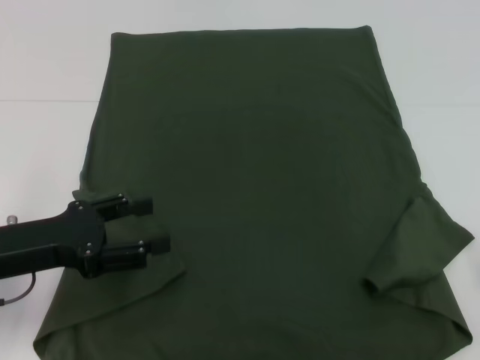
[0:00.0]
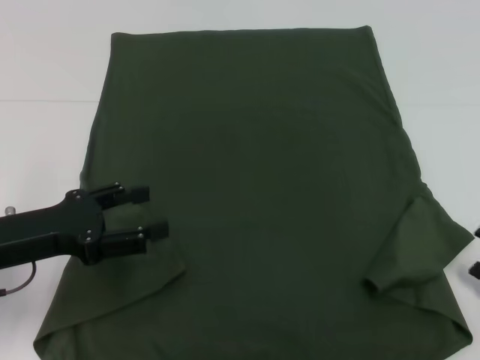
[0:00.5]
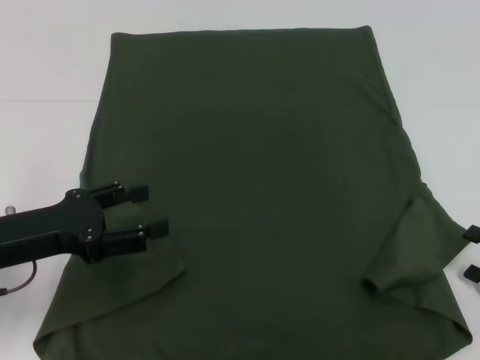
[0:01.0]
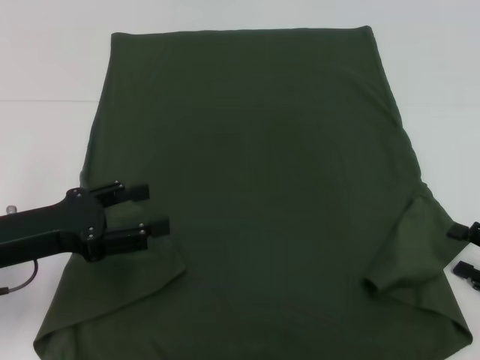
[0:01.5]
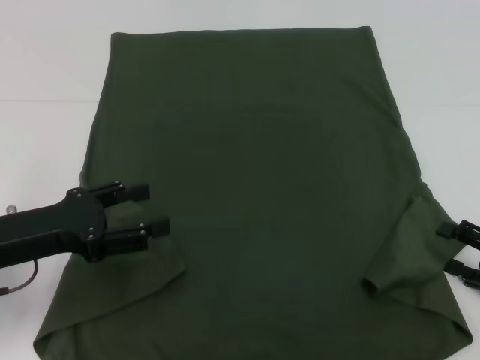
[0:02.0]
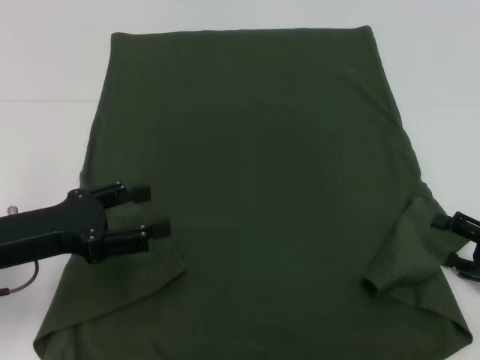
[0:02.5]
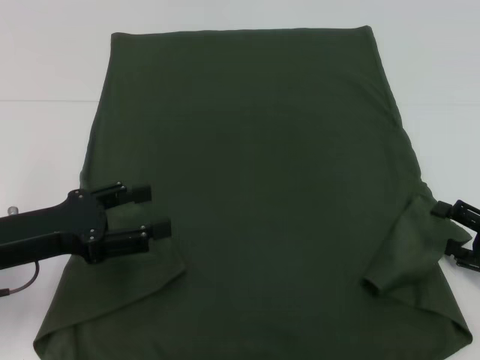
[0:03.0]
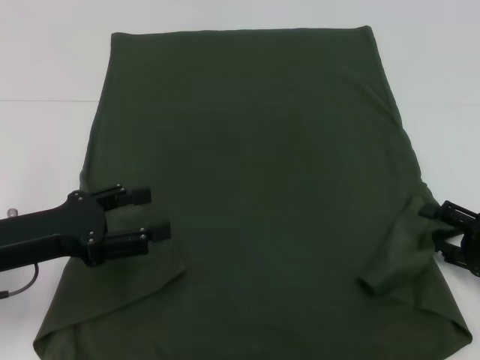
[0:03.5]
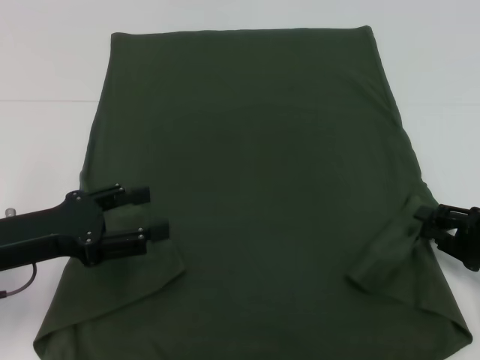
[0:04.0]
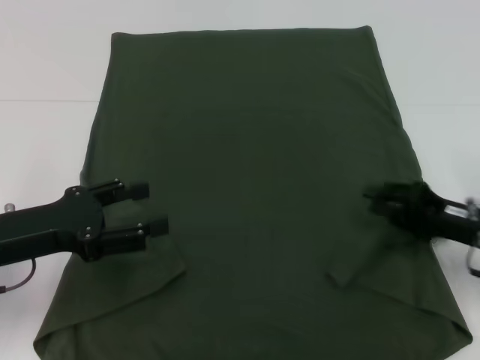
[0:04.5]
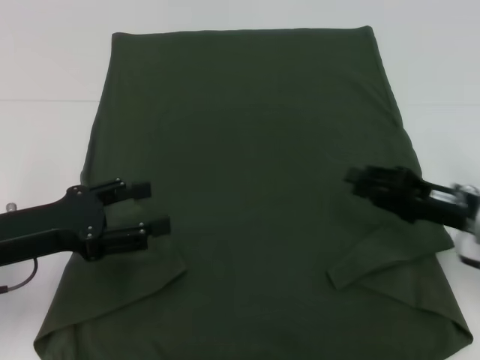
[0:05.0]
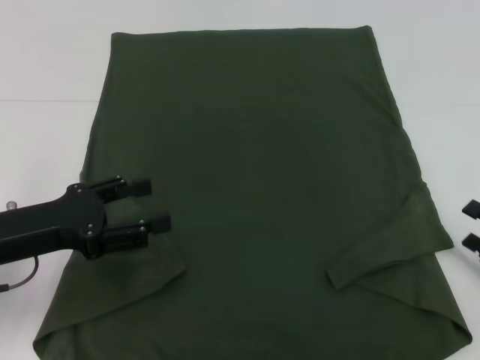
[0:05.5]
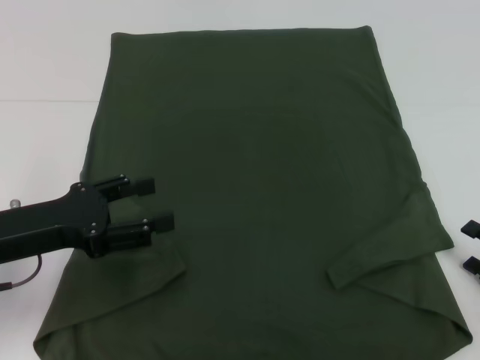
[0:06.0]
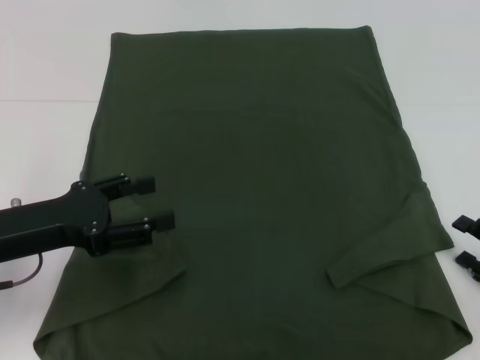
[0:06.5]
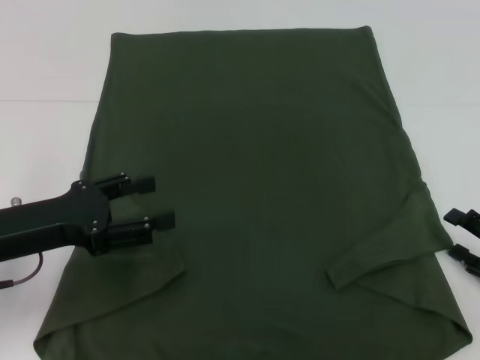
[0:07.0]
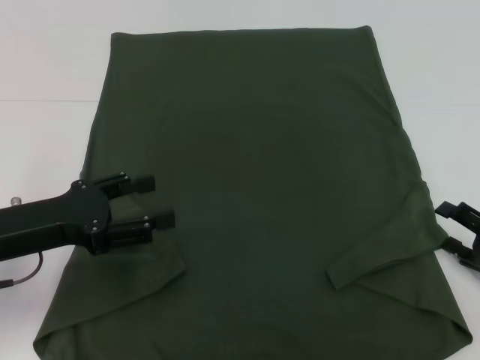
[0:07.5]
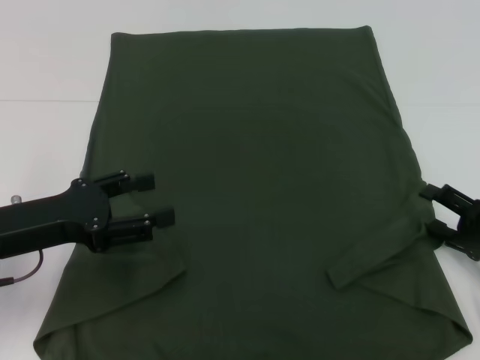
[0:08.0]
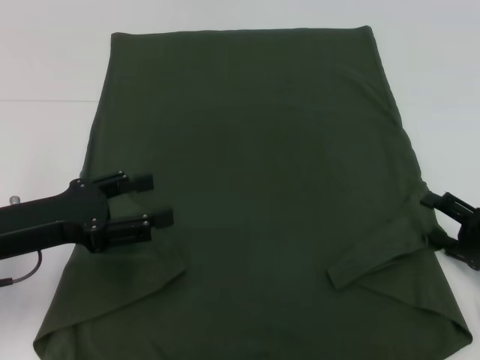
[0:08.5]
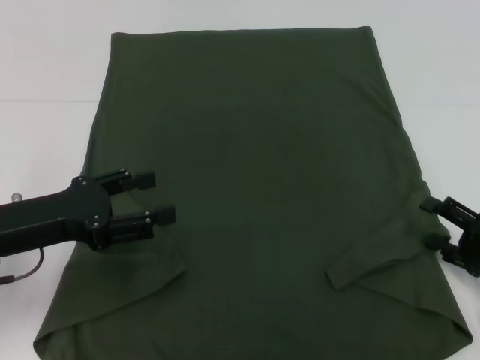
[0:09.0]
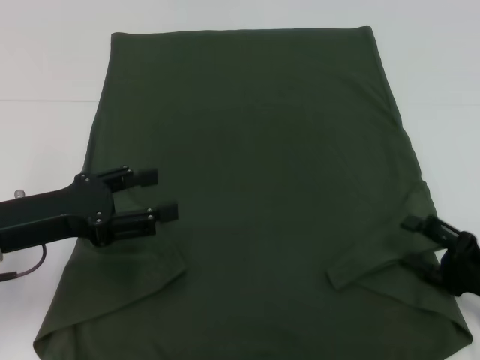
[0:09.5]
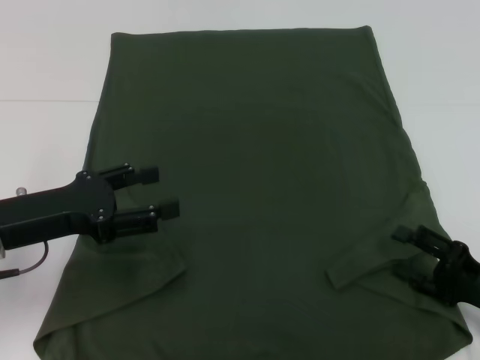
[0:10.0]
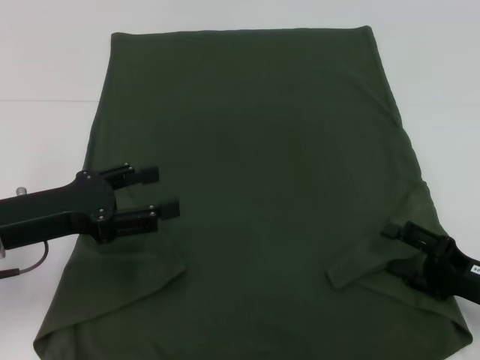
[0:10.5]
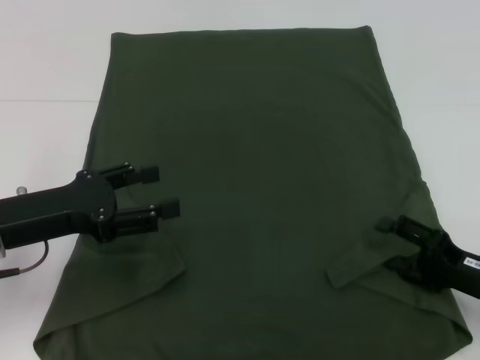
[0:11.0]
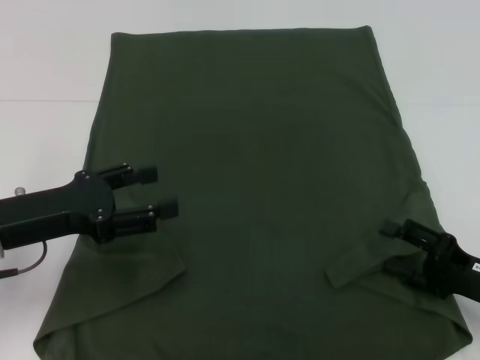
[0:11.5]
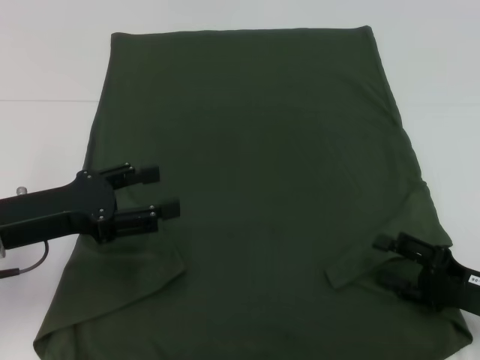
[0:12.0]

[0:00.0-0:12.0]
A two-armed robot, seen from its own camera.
0:00.0 to 0:02.0: The right gripper goes some 5 cm forward.
0:02.0 to 0:04.0: The grippers make only small movements.
0:04.0 to 0:06.0: The right gripper moves backward, approximately 5 cm.
0:06.0 to 0:08.0: The right gripper goes some 5 cm forward.
0:08.0 to 0:12.0: The grippers make only small movements.

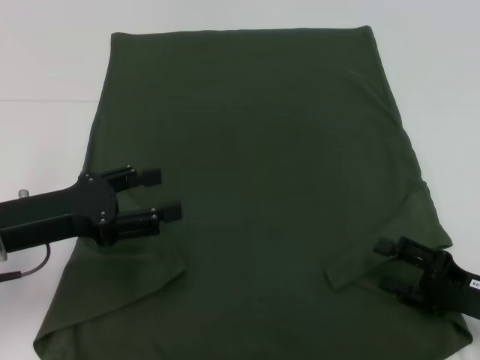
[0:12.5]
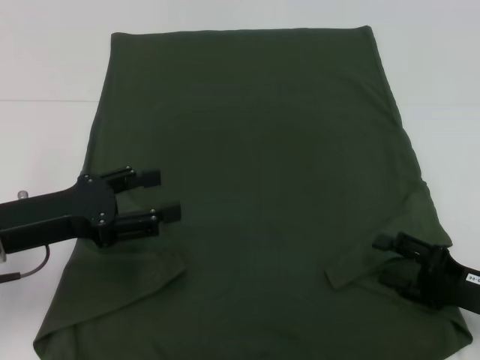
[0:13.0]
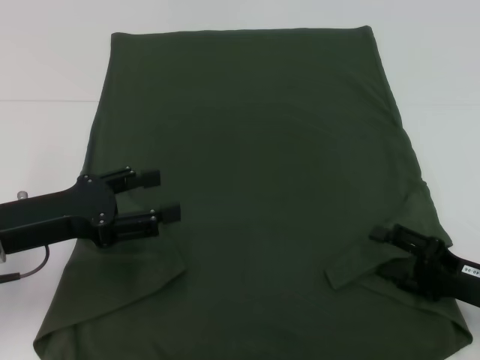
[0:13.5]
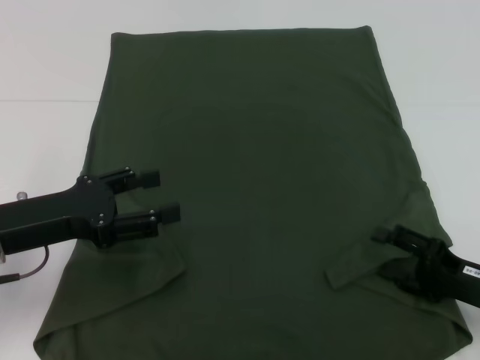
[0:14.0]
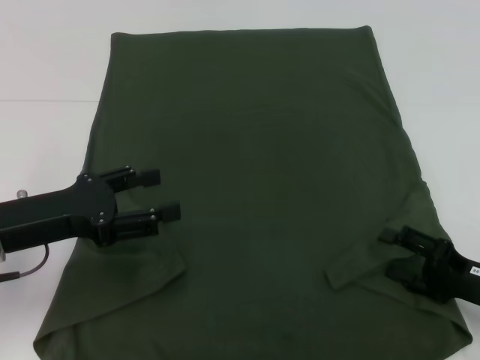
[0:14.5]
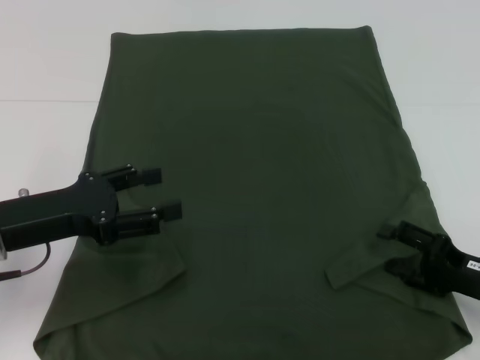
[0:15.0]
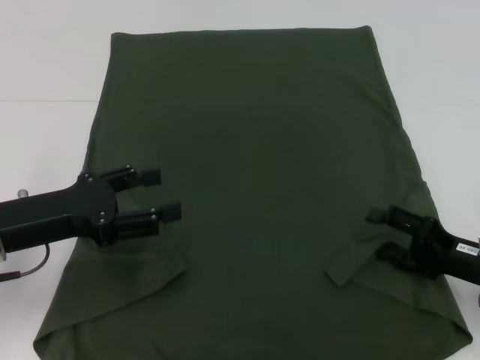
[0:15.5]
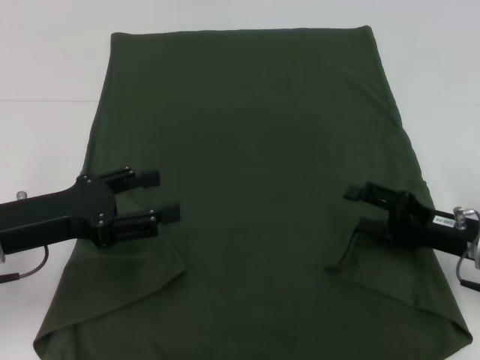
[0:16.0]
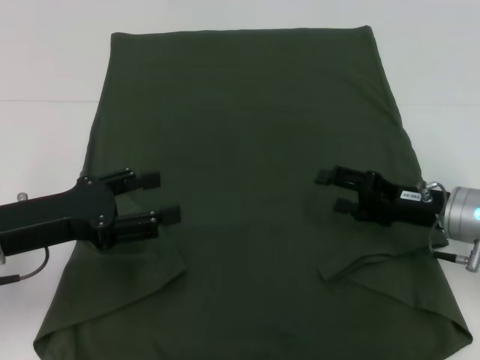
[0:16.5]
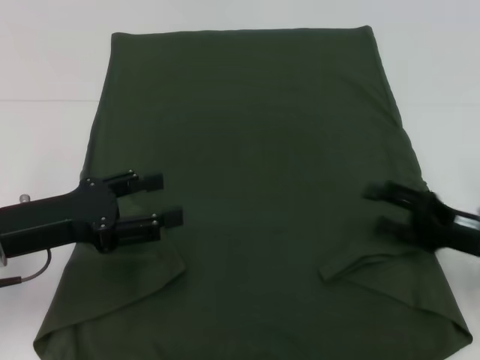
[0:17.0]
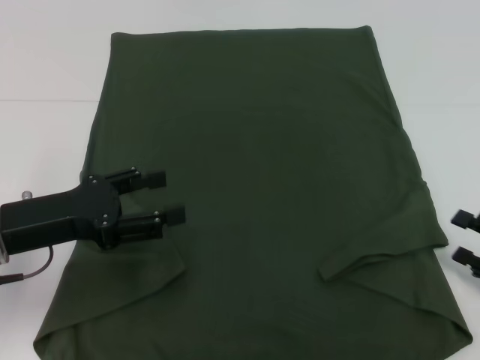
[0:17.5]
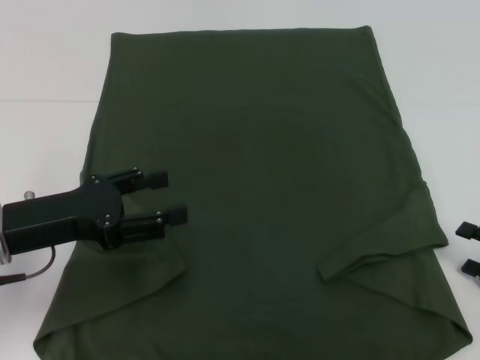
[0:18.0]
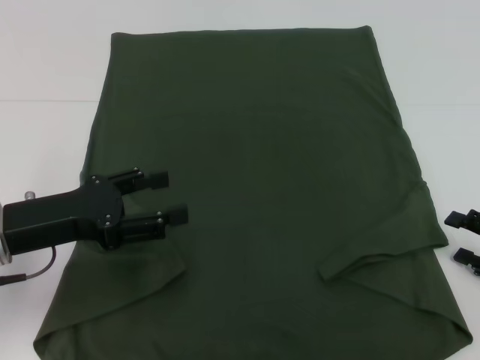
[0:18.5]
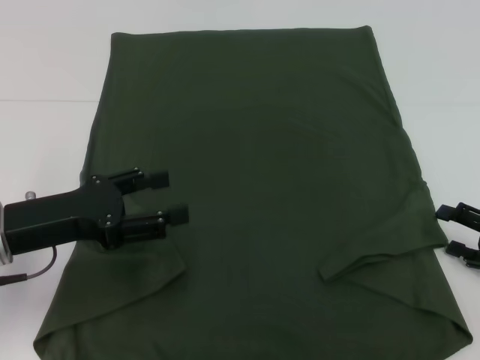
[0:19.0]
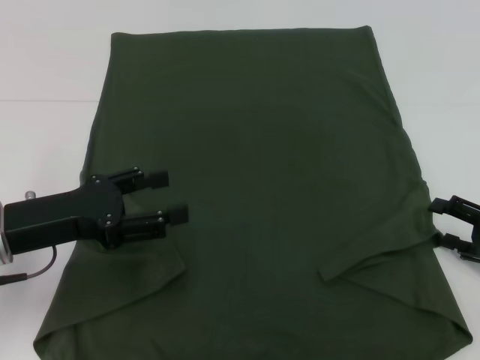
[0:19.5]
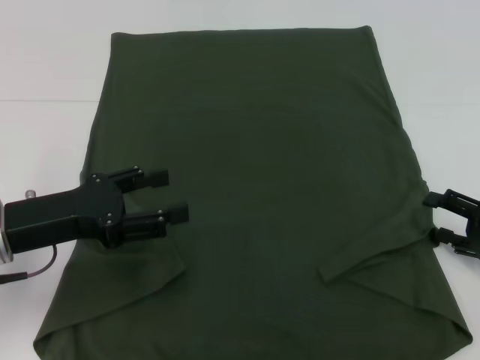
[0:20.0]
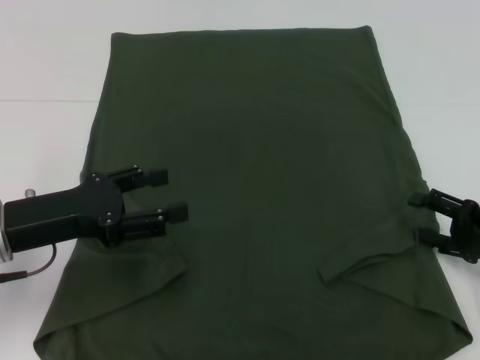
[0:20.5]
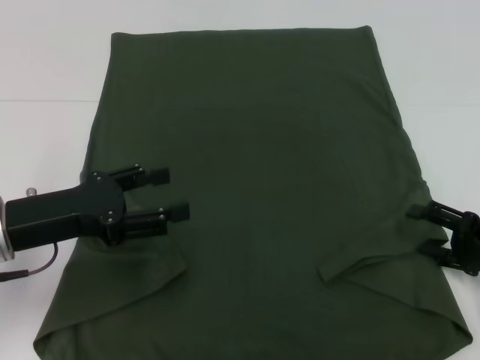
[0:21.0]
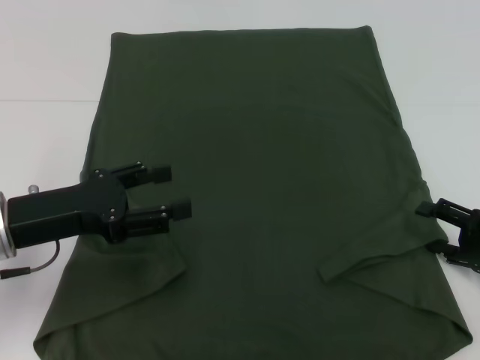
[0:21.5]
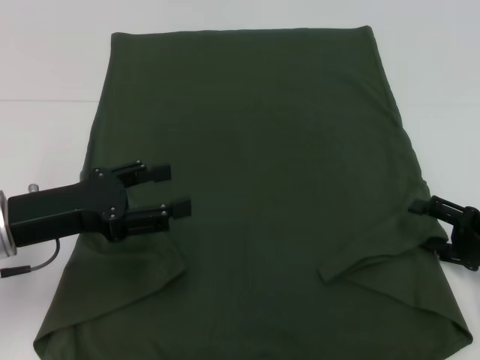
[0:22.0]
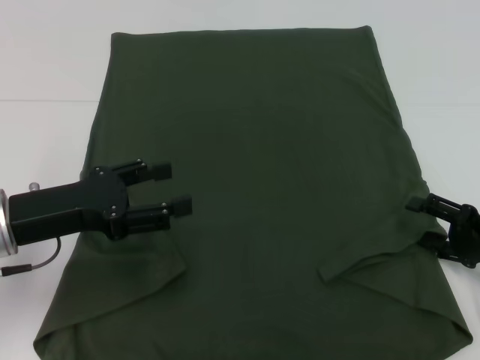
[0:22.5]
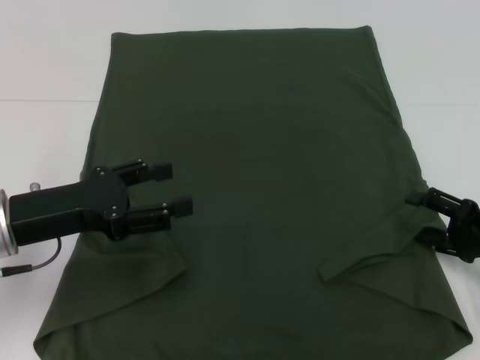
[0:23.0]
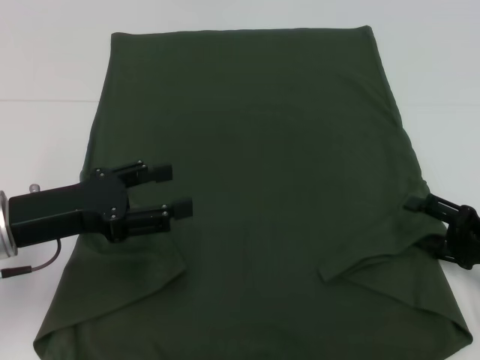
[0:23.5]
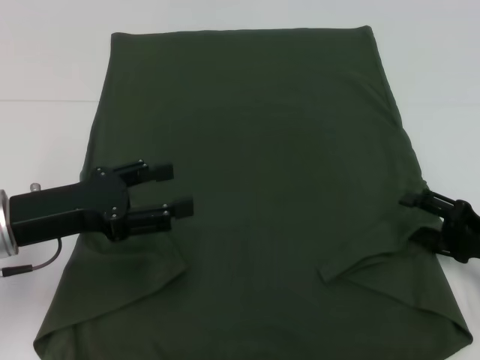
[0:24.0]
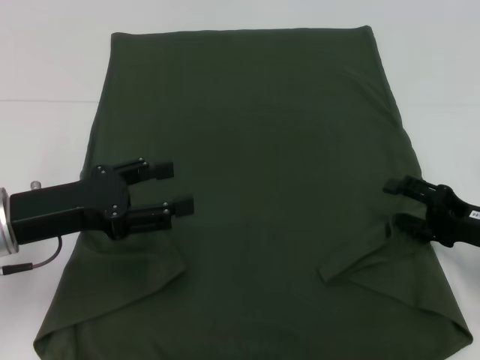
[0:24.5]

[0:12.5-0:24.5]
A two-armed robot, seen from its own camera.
0:12.5 to 0:14.5: The grippers stay close to where they were, moving slightly.
0:14.5 to 0:16.5: The right gripper goes about 10 cm forward and to the left.
0:16.5 to 0:18.5: The right gripper moves to the right and backward, approximately 15 cm.
0:18.5 to 0:20.5: The grippers move only a little.
0:20.5 to 0:22.5: The two grippers keep their place.
0:22.5 to 0:24.5: There are only small adjustments of the grippers.

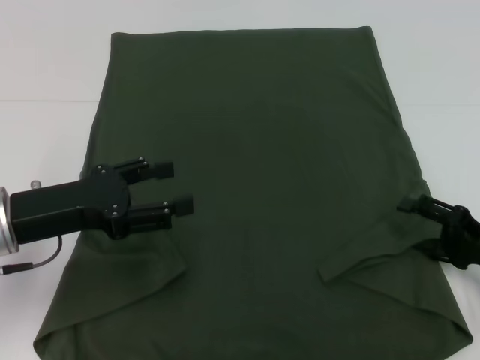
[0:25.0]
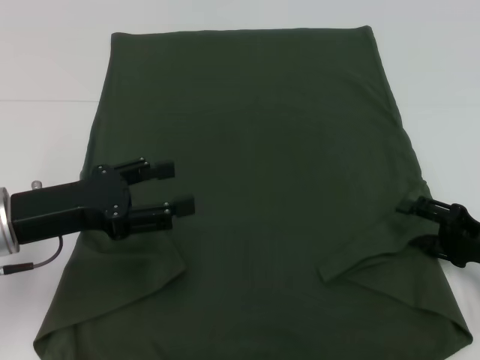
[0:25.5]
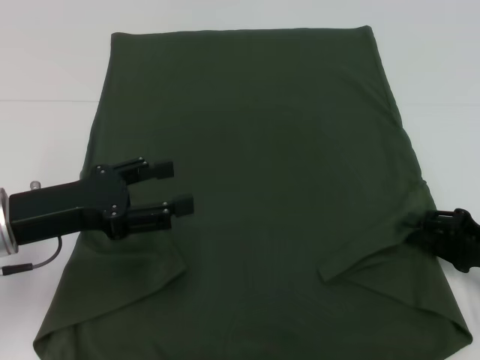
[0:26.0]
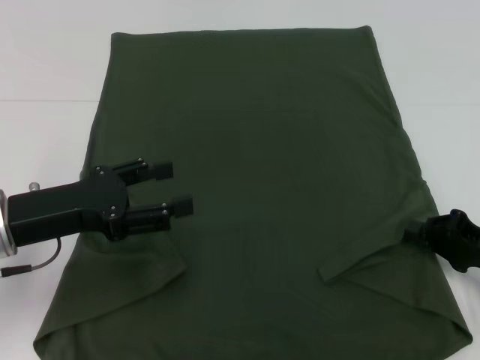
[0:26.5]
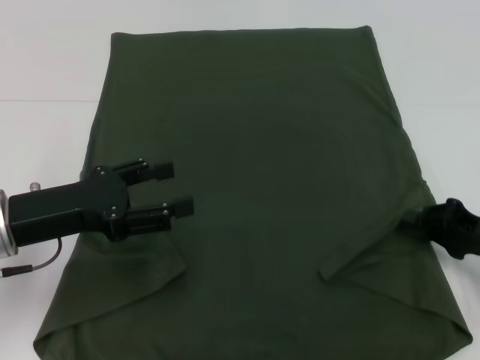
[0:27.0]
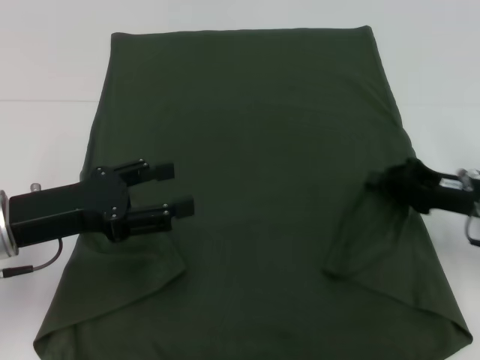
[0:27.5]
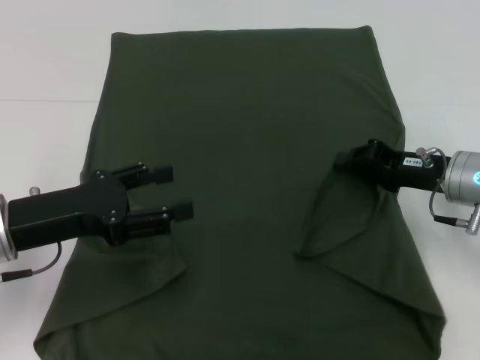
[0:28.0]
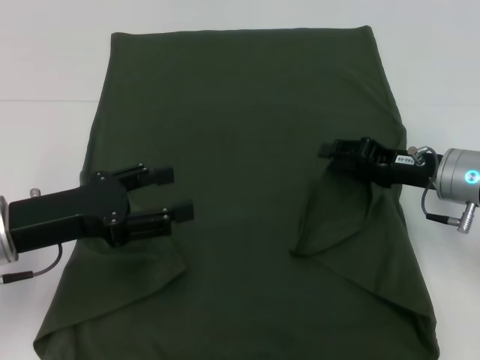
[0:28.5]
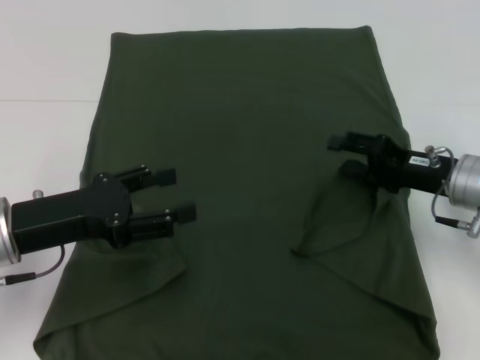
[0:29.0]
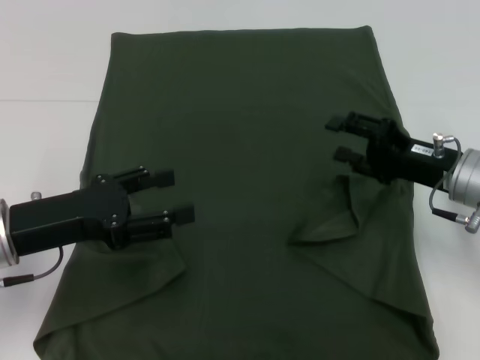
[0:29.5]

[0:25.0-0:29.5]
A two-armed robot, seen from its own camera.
Step, 0:25.0 to 0:29.0: Fold the bottom right sleeve with your right hand.
0:25.0 to 0:27.0: The right gripper closes up.
0:27.0 to 0:29.5: The right gripper goes roughly 10 cm to the left and forward, and opens.
